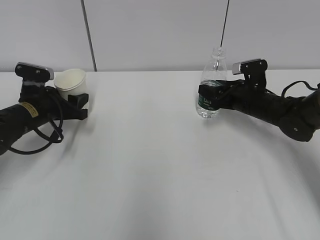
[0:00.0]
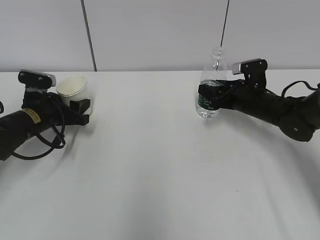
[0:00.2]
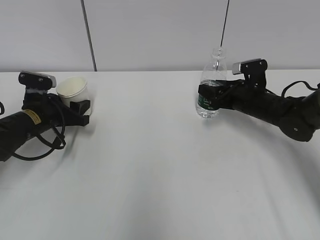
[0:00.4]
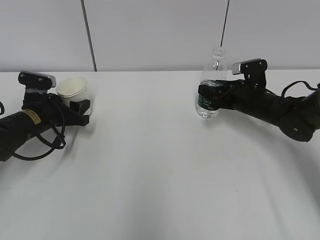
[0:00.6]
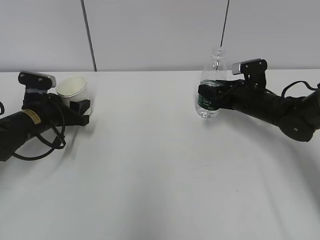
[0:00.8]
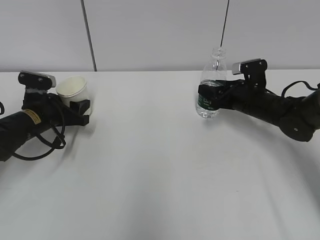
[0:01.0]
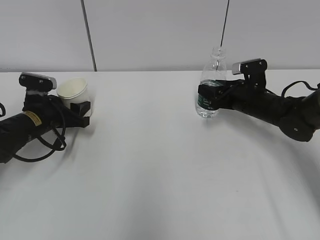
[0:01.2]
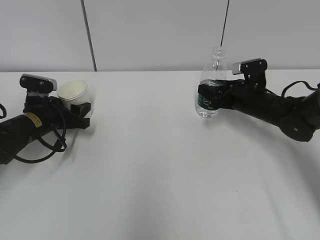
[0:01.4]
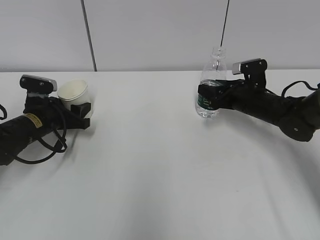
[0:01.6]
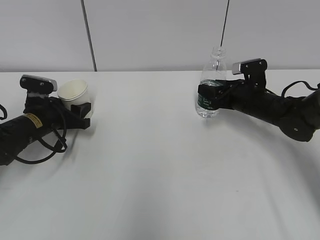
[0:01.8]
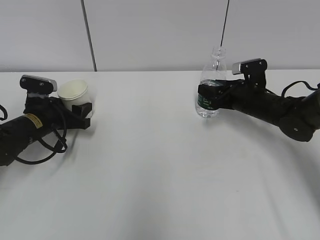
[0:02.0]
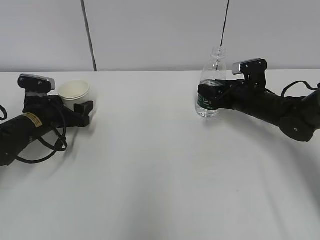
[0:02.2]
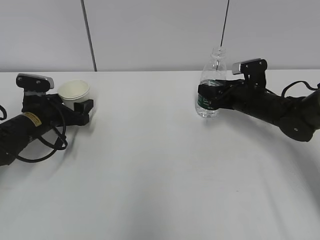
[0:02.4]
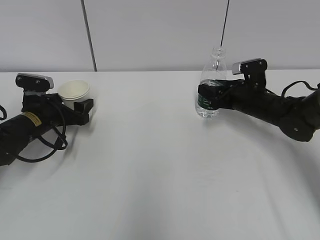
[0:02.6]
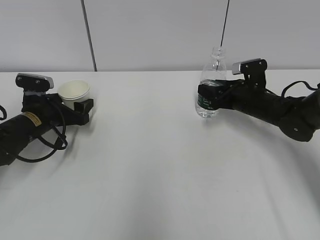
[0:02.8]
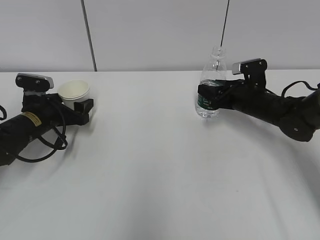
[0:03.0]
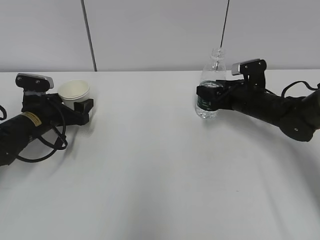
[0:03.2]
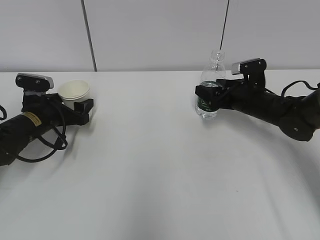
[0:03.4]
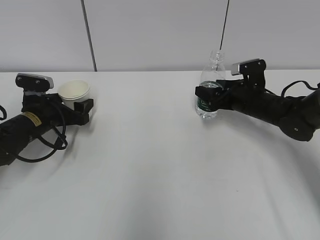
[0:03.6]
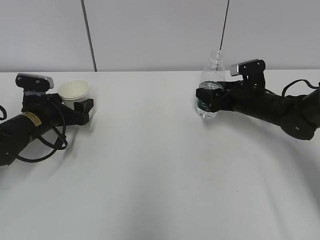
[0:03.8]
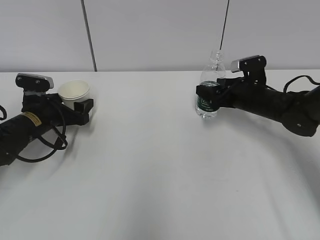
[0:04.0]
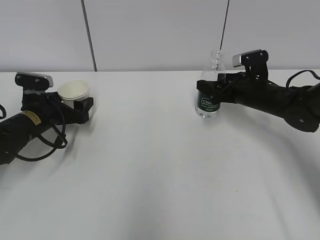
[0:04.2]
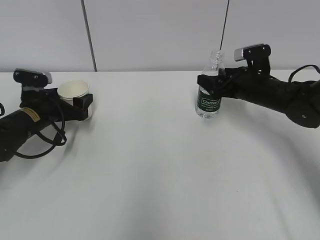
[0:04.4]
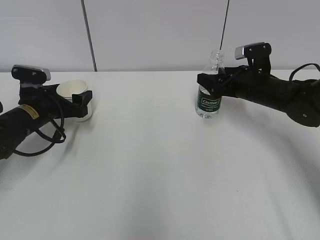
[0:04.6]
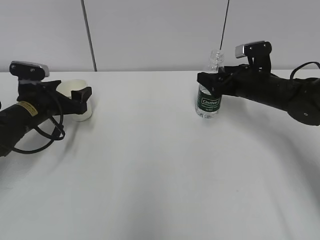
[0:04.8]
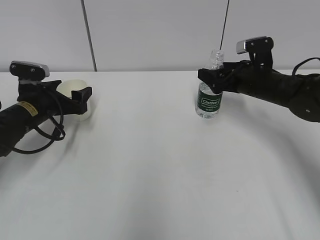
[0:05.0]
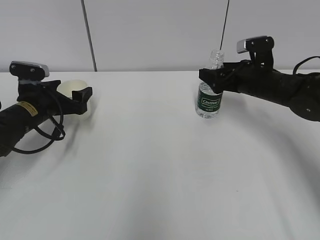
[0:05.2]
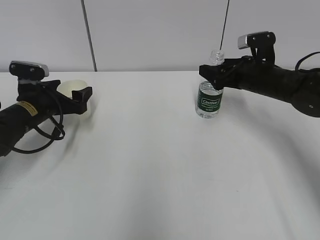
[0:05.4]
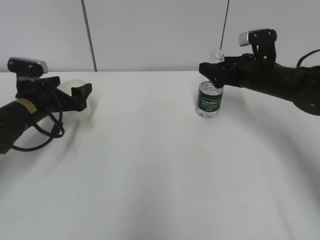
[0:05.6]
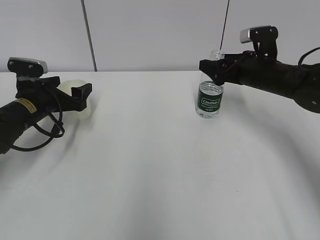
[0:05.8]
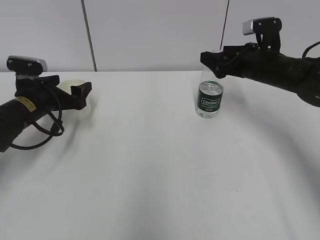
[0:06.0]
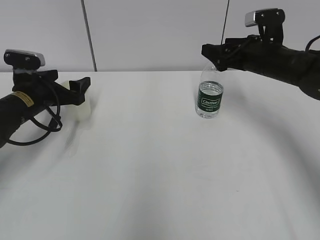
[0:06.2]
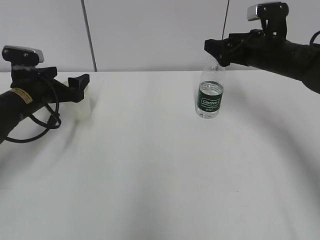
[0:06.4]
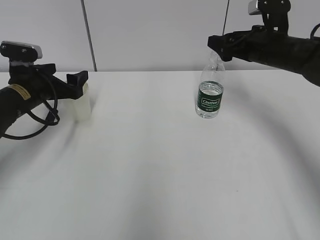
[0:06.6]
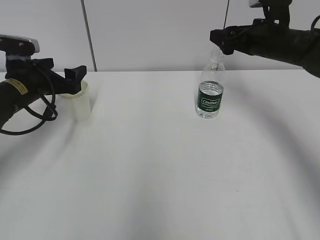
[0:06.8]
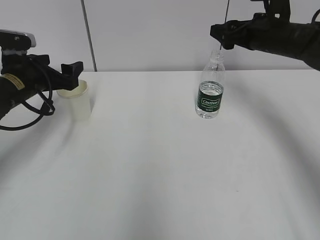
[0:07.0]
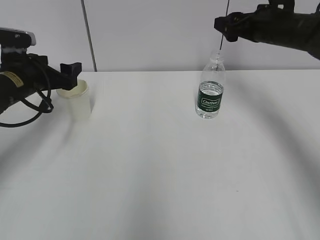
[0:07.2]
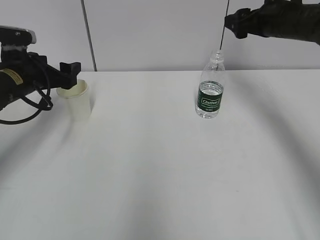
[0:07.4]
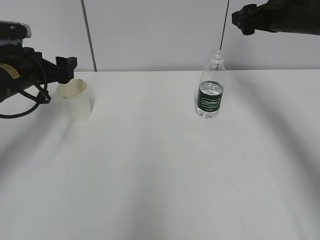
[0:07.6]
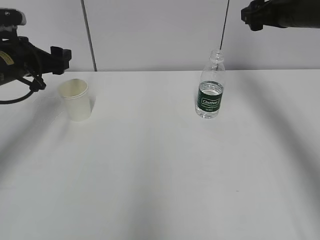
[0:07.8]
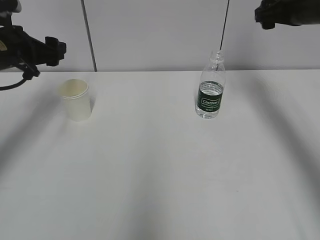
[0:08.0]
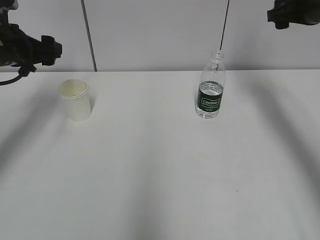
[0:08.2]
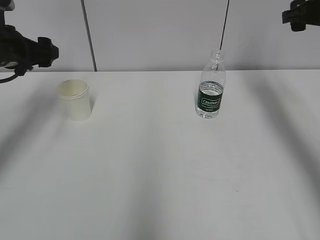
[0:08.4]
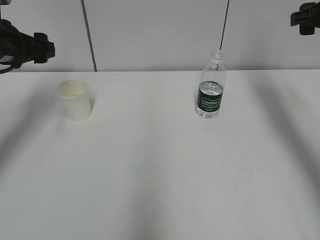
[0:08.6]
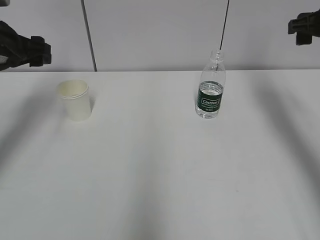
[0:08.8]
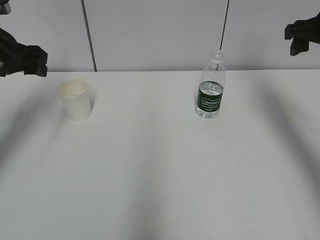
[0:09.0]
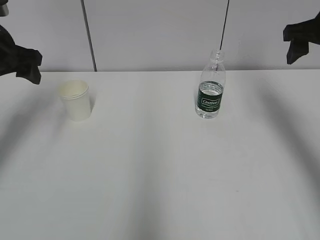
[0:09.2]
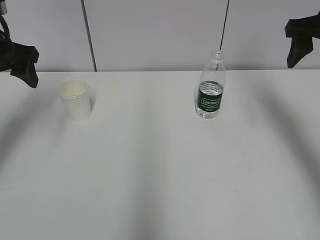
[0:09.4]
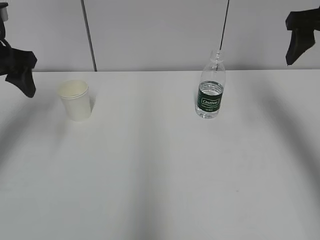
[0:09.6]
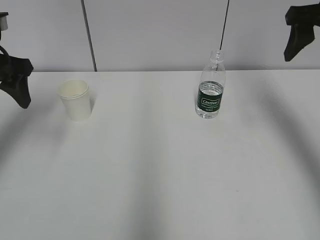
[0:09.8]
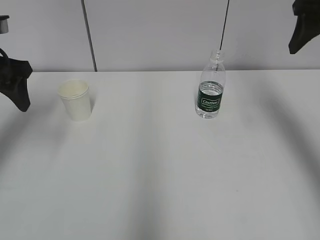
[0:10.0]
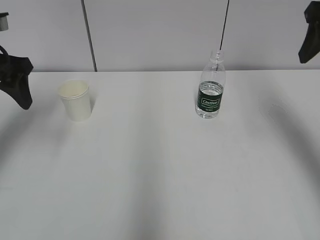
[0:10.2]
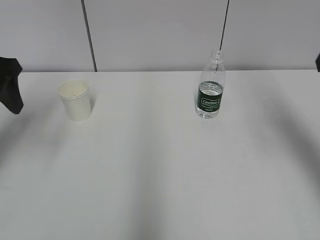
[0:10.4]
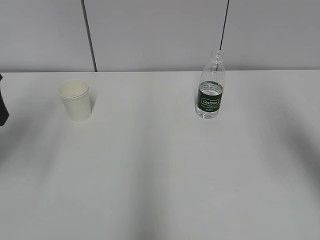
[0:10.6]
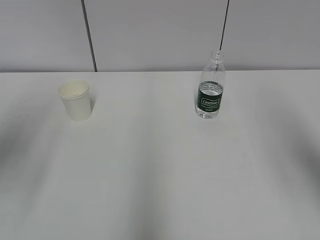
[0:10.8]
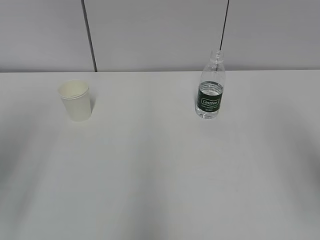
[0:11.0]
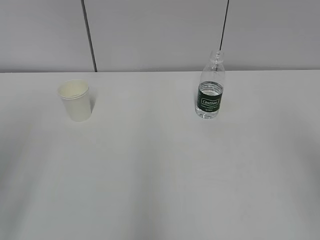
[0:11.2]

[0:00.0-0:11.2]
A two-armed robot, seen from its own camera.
0:00.0 to 0:01.6: There are only small adjustments of the grippers.
0:01.6 to 0:03.2: The left gripper opens up.
0:03.2 to 0:04.8: The right gripper opens up.
0:04.8 to 0:06.4: The right gripper is displaced upward by roughly 5 cm.
0:06.4 to 0:08.0: The two grippers go roughly 10 cm upward.
0:08.0 to 0:09.6: The left gripper is displaced upward by approximately 5 cm, while the right gripper goes roughly 10 cm backward.
0:09.6 to 0:11.2: The two grippers go approximately 25 cm backward.

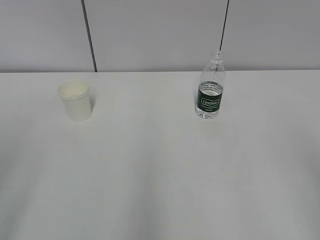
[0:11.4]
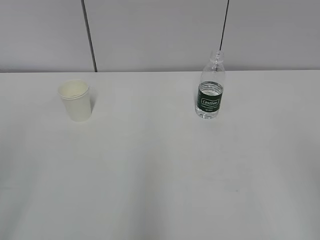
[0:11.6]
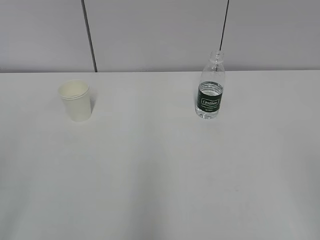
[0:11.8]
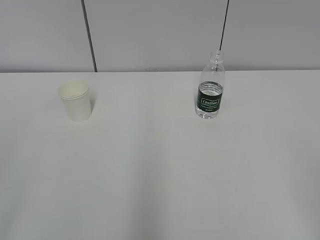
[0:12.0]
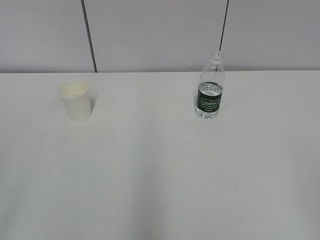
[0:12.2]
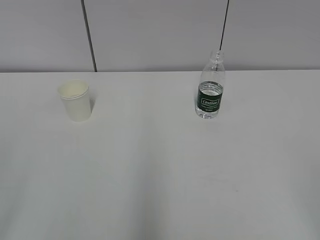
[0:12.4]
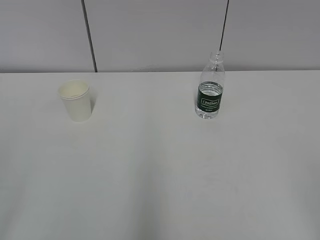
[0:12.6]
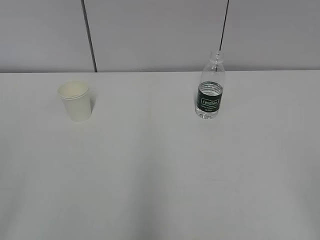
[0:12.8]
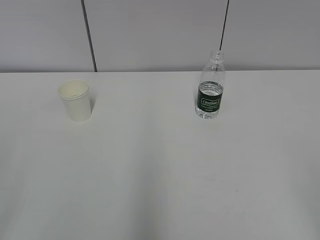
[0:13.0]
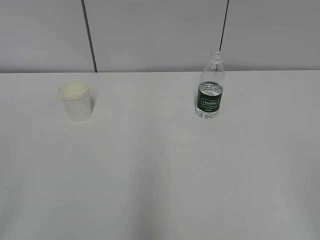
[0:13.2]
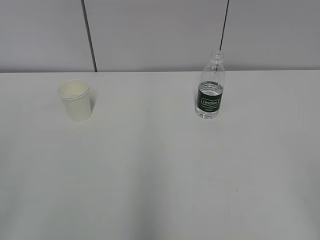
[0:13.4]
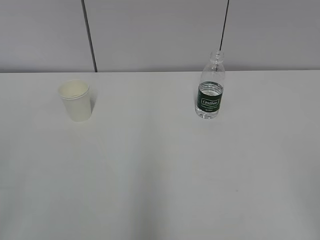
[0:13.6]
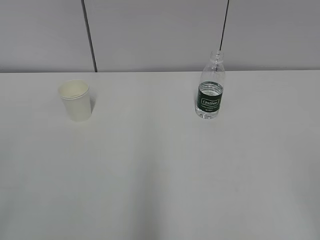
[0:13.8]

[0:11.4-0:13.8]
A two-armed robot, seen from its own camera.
0:12.6 to 0:13.8: Both grippers stay about where they are.
